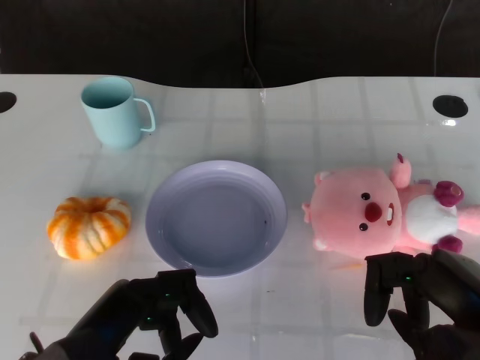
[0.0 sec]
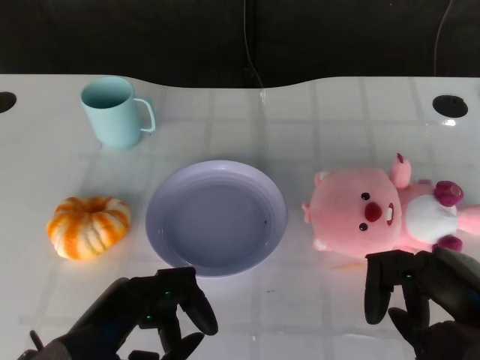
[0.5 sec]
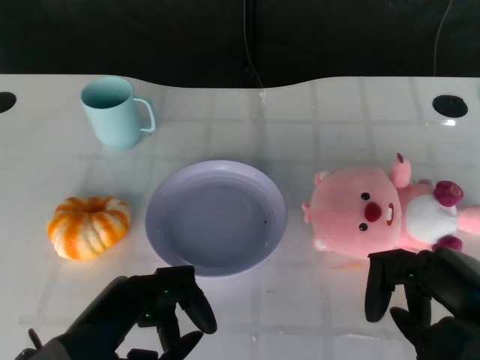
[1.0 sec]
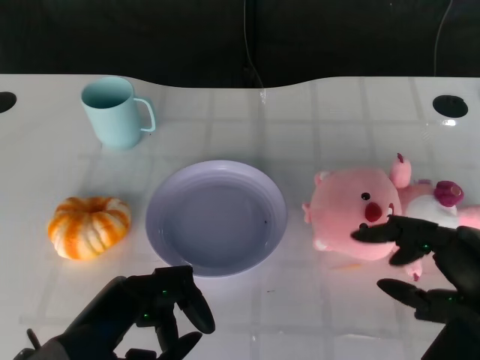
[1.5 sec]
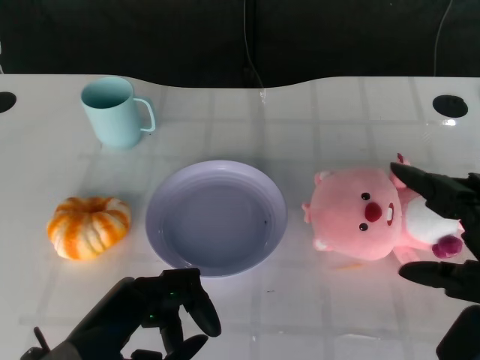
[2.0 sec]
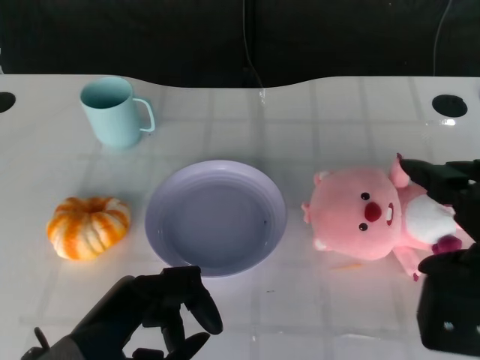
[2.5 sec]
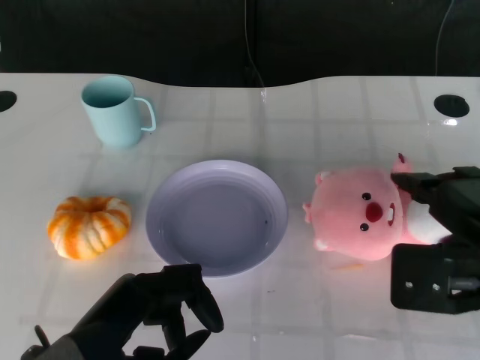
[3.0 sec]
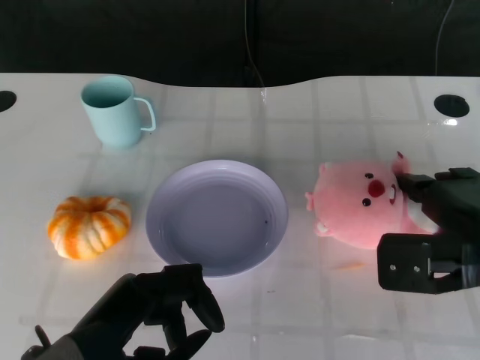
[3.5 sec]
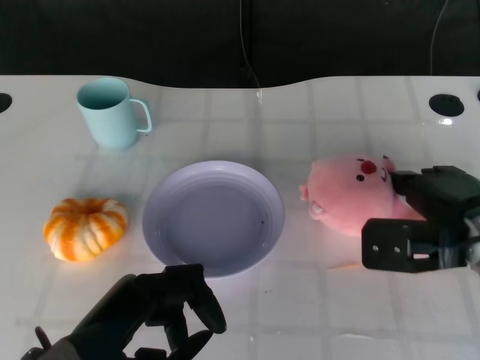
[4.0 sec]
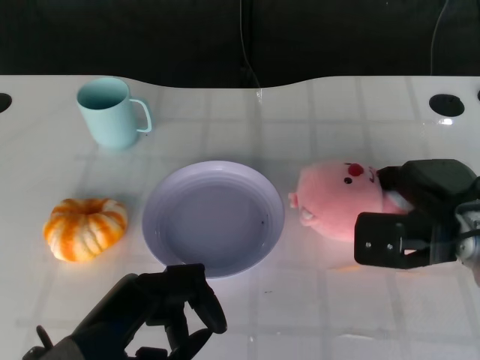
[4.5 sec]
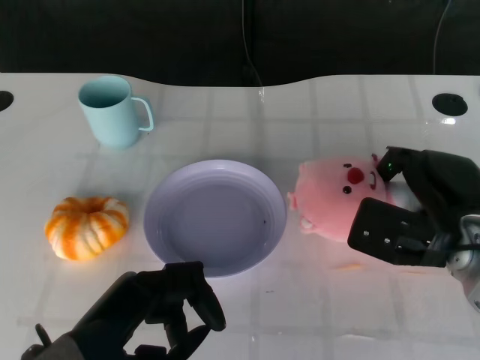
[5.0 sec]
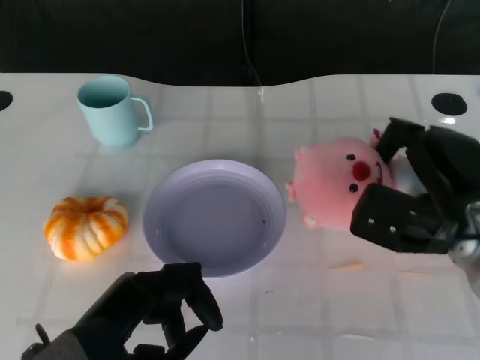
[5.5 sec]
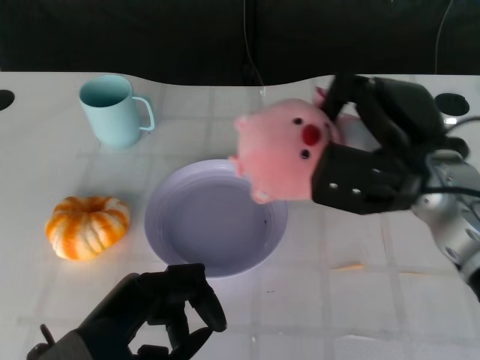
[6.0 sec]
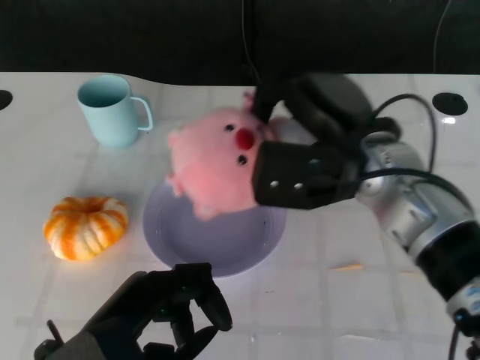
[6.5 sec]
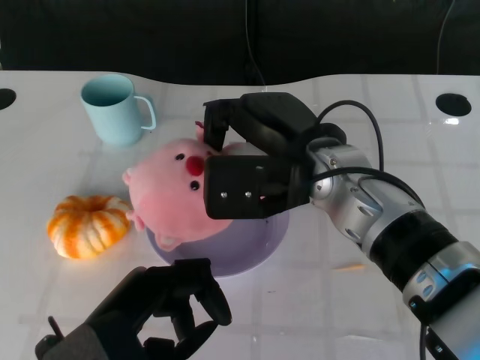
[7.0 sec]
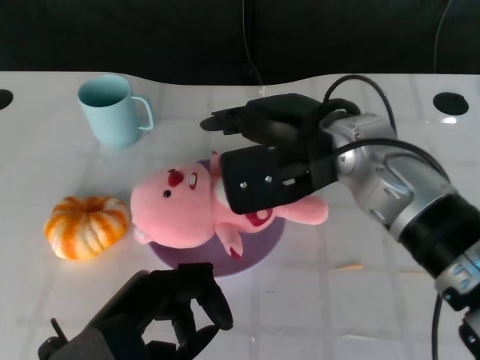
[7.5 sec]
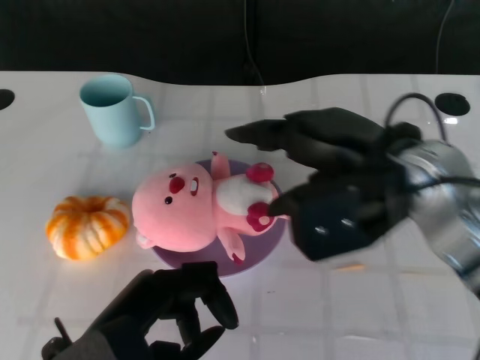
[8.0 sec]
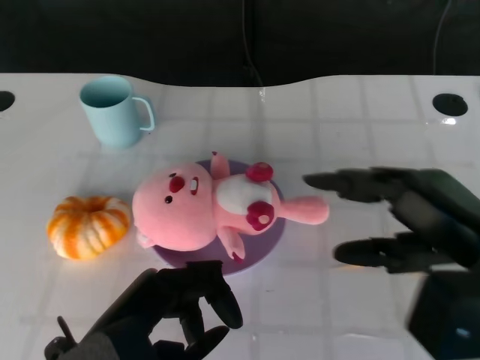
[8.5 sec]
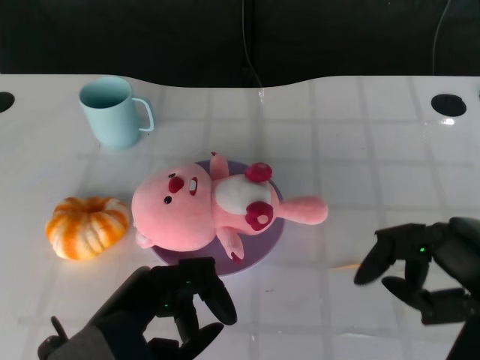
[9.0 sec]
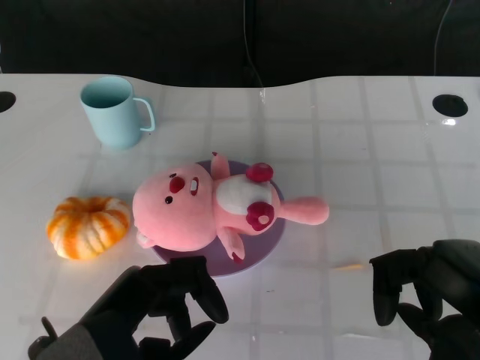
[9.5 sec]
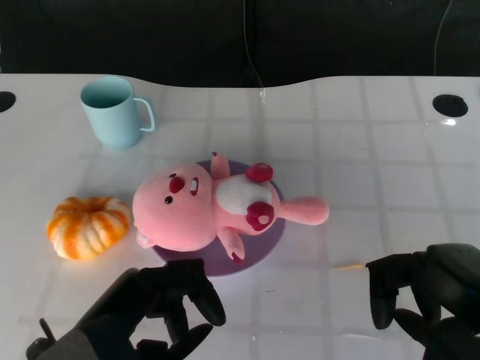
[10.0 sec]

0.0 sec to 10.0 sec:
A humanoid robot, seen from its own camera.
Task of the whole recording: Pick up the doll on the other side of the plate and place it into the plate.
Step, 1.0 sec to 5.5 sec: Grasp the pink doll with the right gripper.
Step, 6.0 sec to 7.5 sec: Place the pink doll into the plate with the right gripper.
2.0 sec to 4.0 sec: The right hand is displaced forward and downward by about 15 cm.
4.0 sec to 6.0 sec: The right hand moves upward and to the left, roughly 10 cm.
6.0 sec to 8.0 sec: The right hand goes about 5 cm upward, and travels to the left and back again, about 10 cm each way.
8.0 sec to 10.0 sec: The right hand heads backward, to the right and downward, covering roughly 15 cm.
